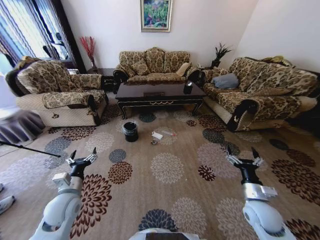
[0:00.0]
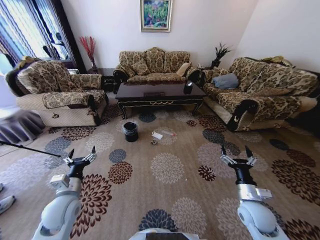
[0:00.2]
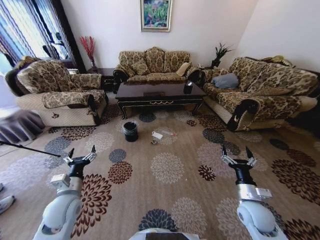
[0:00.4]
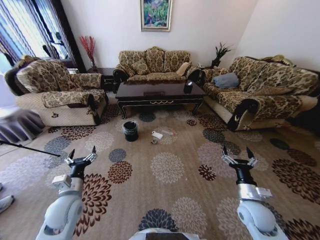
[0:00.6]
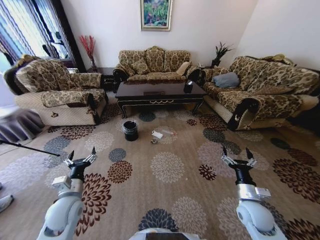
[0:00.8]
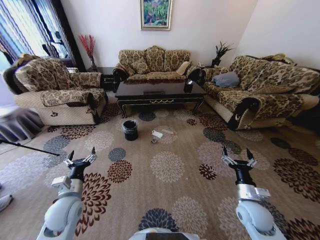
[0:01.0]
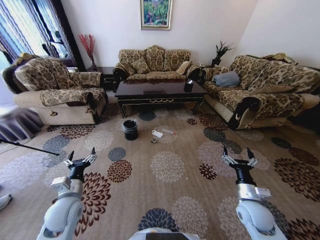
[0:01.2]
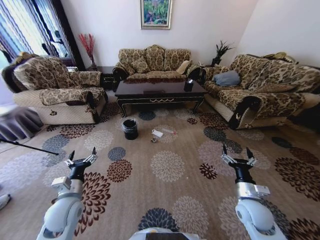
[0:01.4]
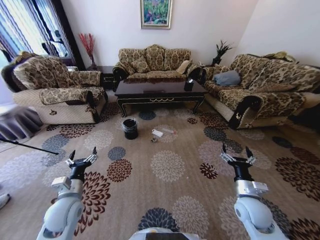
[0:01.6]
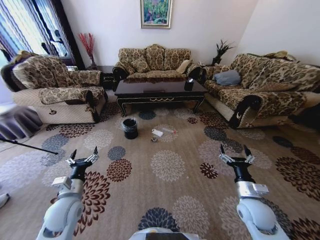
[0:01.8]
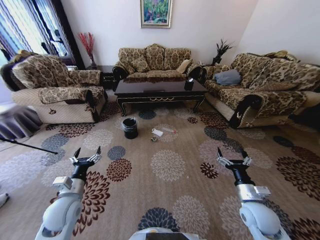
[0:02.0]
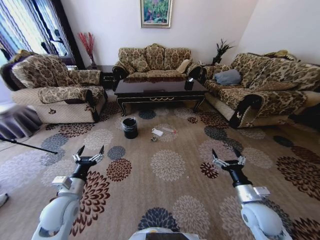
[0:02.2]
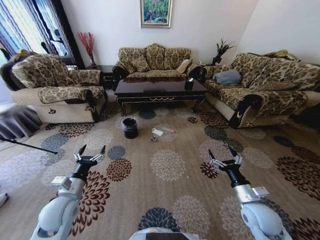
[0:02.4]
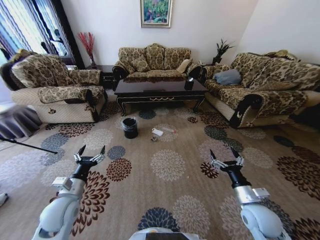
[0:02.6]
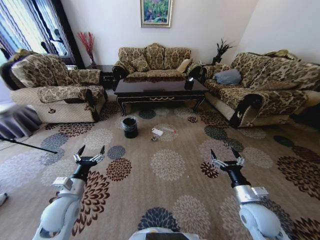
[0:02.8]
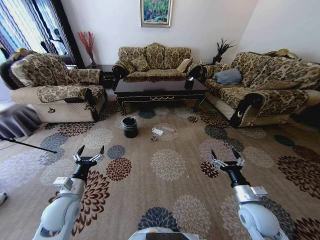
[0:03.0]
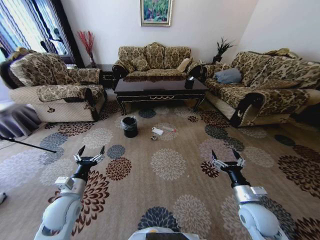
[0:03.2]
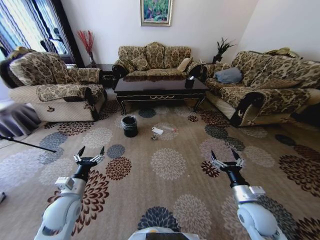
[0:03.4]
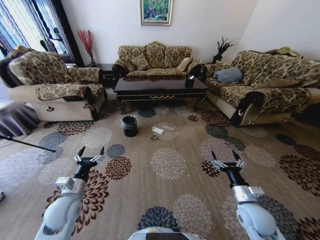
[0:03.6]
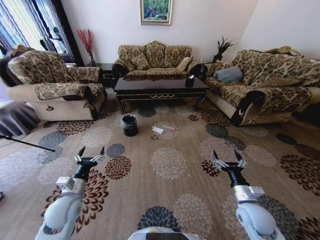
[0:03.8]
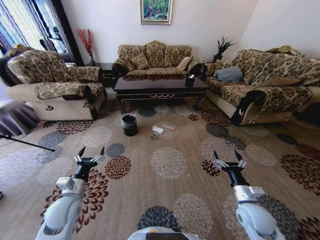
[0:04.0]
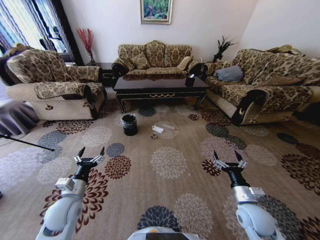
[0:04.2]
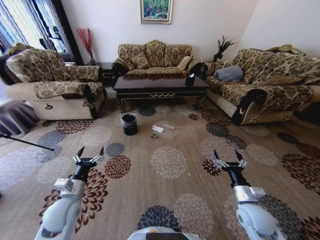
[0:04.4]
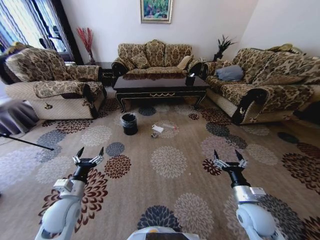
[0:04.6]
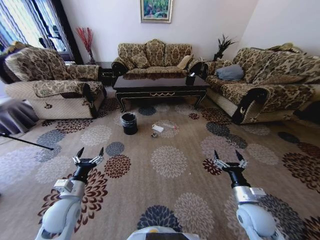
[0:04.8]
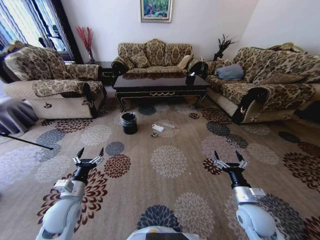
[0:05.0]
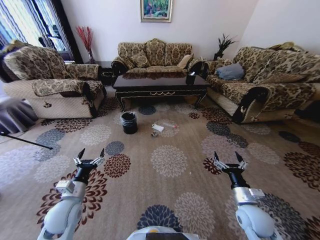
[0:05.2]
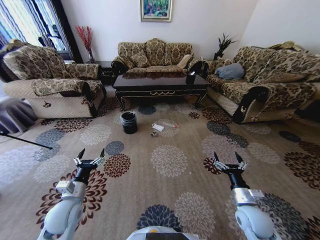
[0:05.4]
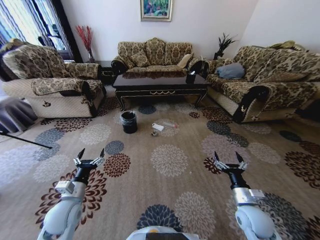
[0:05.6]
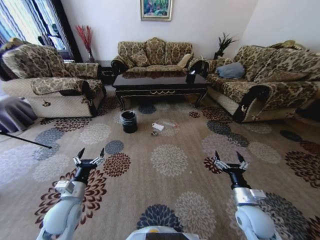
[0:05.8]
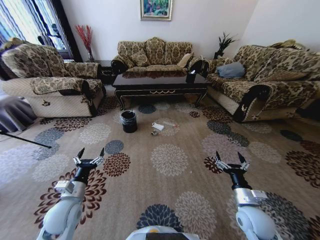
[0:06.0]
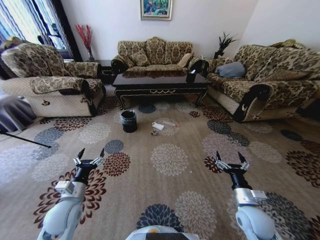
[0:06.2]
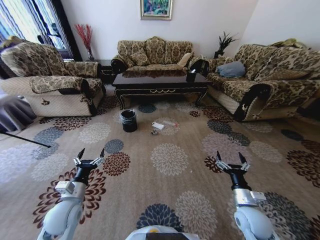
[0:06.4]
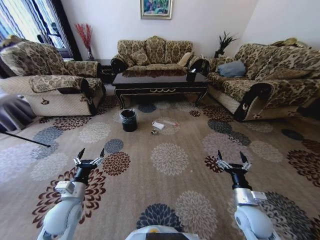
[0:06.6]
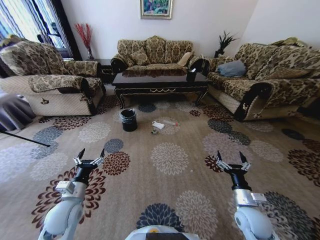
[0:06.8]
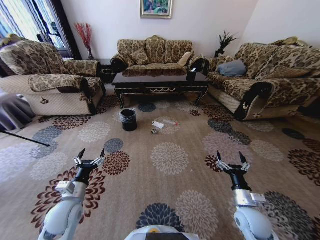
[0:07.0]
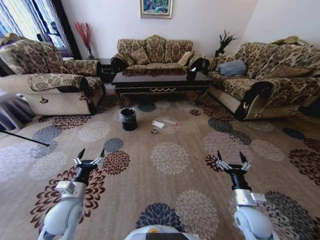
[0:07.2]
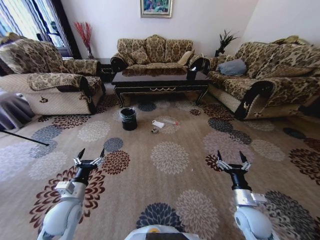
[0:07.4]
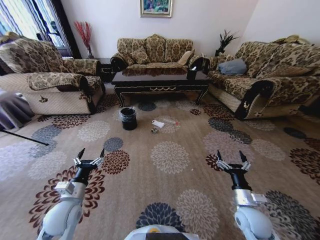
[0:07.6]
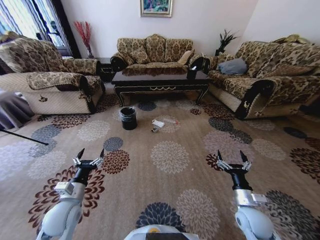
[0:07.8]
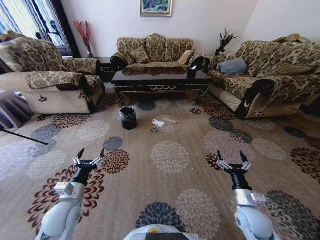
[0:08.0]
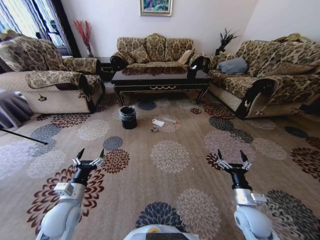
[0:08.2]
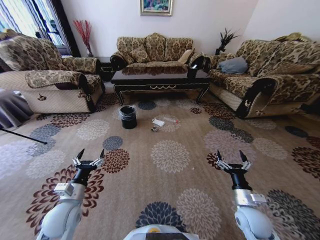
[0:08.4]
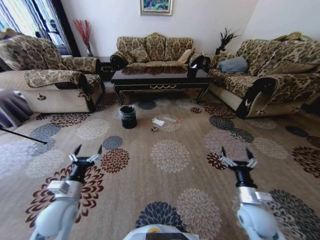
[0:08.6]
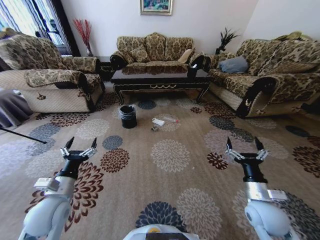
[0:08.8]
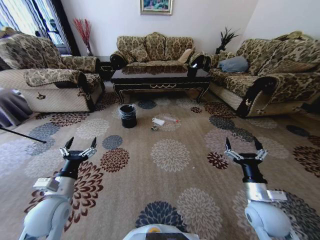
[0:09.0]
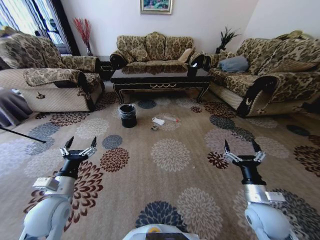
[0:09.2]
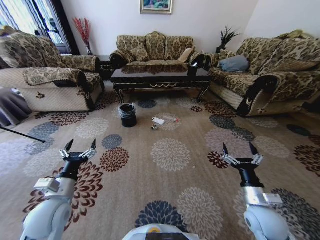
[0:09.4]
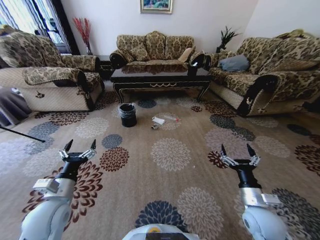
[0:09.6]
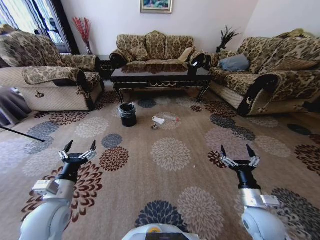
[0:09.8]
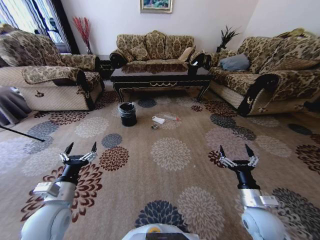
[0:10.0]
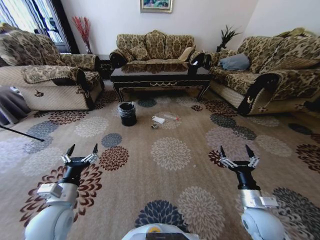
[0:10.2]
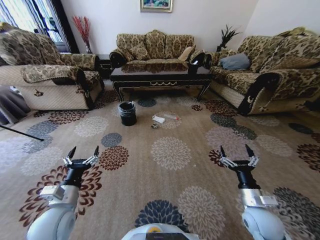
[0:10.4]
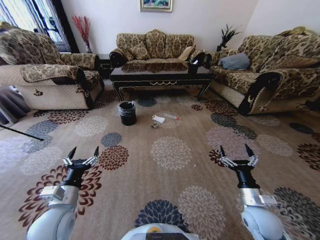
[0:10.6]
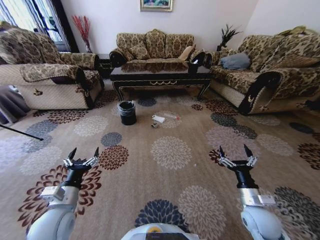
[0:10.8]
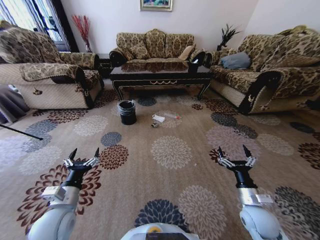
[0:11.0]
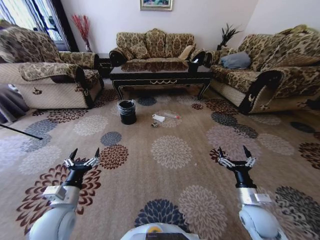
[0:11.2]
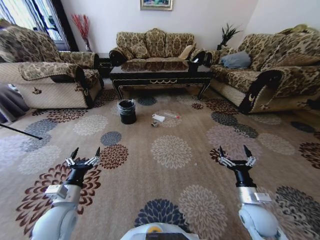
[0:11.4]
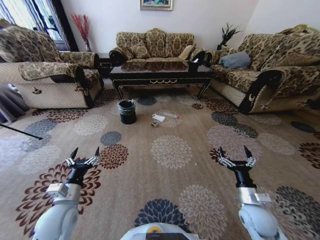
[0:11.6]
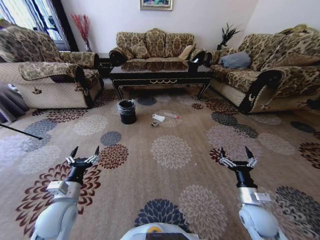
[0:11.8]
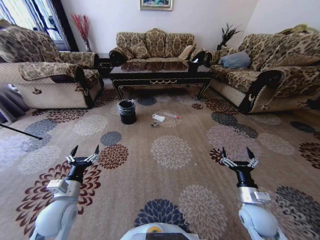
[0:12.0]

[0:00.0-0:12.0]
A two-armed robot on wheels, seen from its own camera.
Task of the whole recording: Move to the front of the table and pick up the trash from the floor, then place it into the trash bin.
0:07.6 to 0:09.0: Both grippers travel together upward, some 5 cm.
0:10.4 to 0:12.0: There are only small adjustments of the grippers.

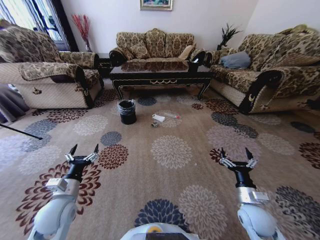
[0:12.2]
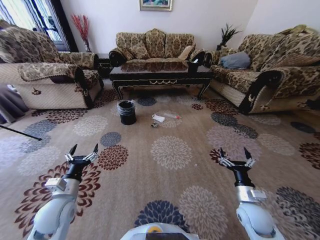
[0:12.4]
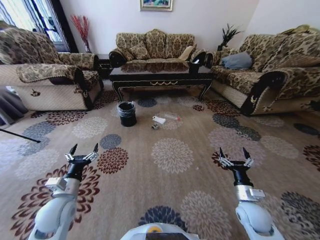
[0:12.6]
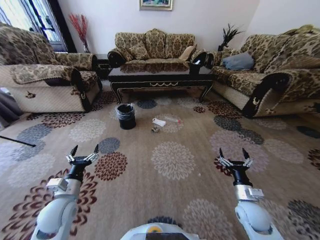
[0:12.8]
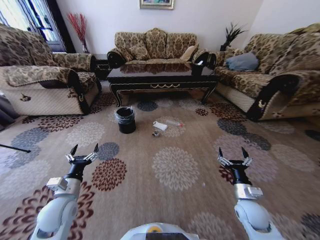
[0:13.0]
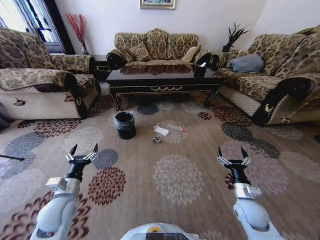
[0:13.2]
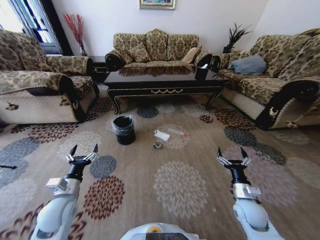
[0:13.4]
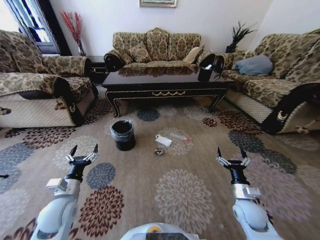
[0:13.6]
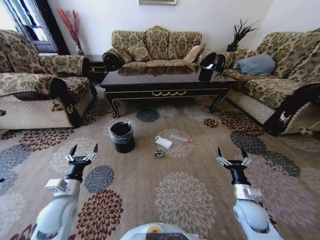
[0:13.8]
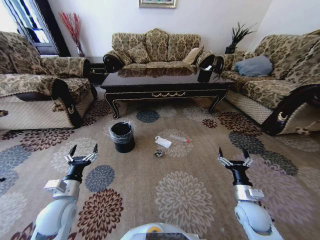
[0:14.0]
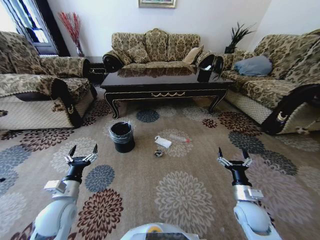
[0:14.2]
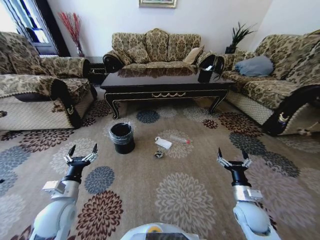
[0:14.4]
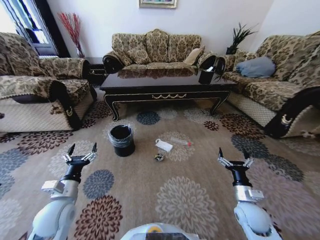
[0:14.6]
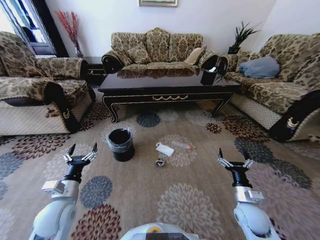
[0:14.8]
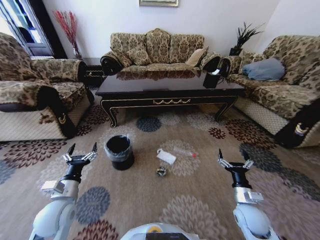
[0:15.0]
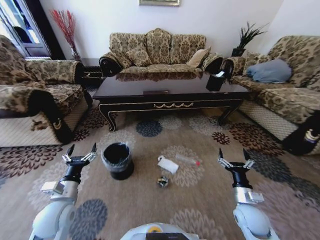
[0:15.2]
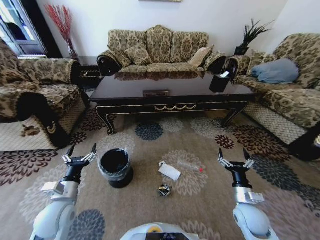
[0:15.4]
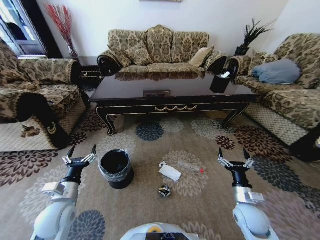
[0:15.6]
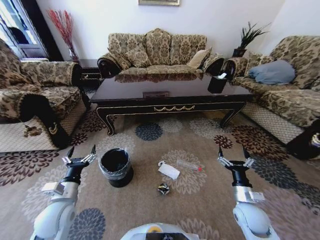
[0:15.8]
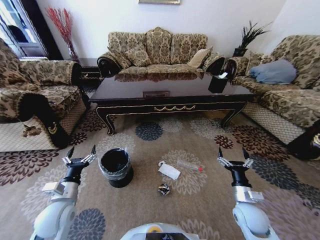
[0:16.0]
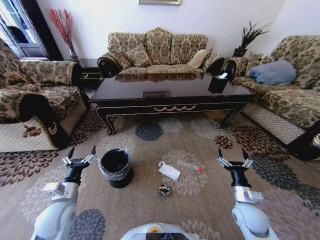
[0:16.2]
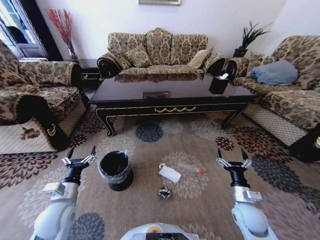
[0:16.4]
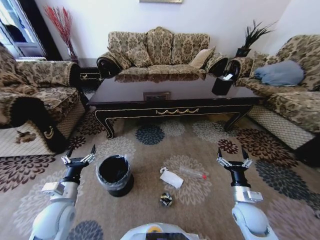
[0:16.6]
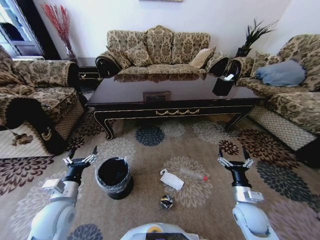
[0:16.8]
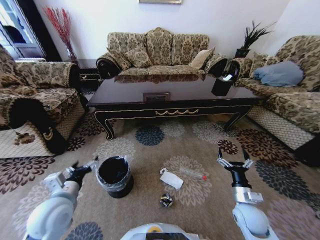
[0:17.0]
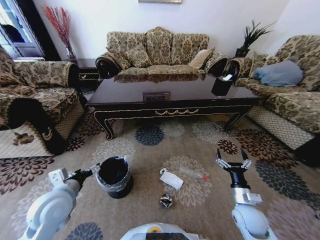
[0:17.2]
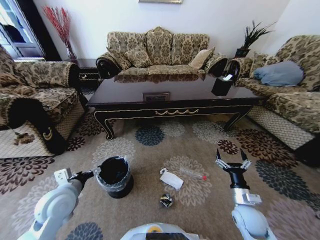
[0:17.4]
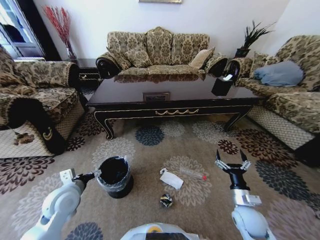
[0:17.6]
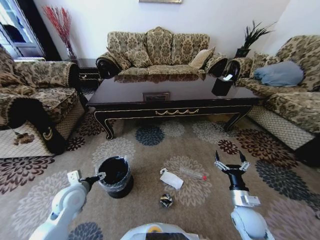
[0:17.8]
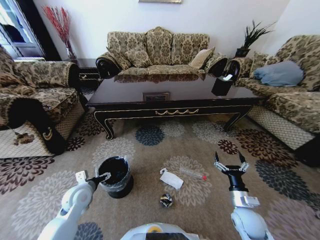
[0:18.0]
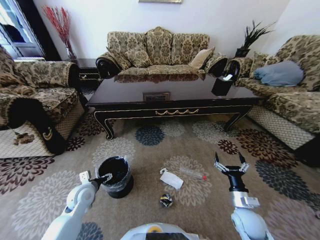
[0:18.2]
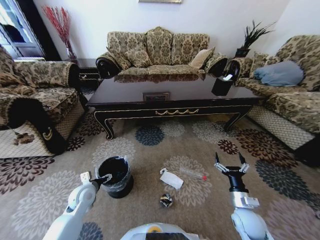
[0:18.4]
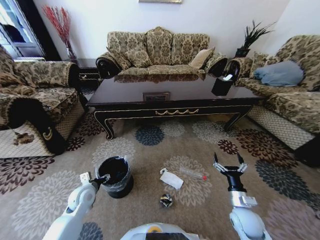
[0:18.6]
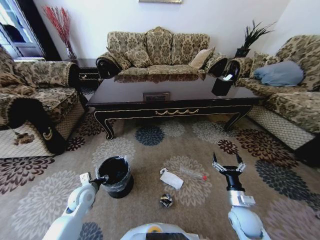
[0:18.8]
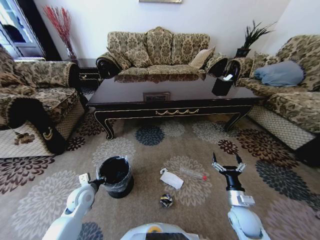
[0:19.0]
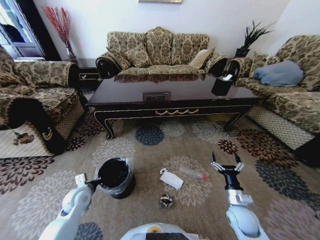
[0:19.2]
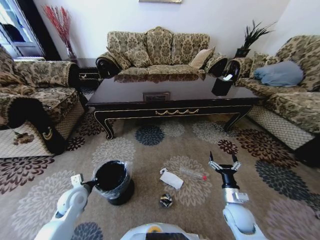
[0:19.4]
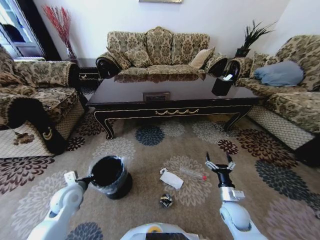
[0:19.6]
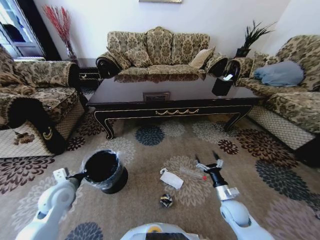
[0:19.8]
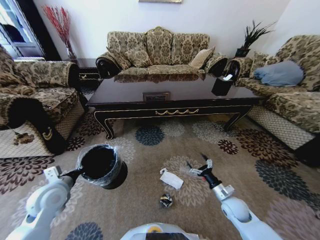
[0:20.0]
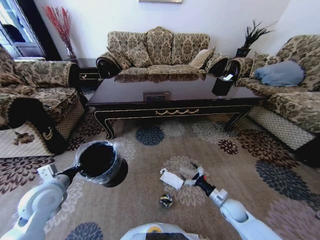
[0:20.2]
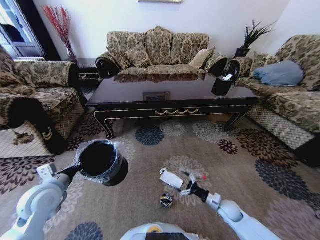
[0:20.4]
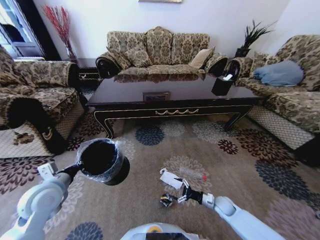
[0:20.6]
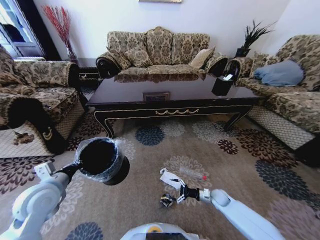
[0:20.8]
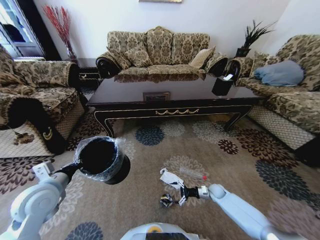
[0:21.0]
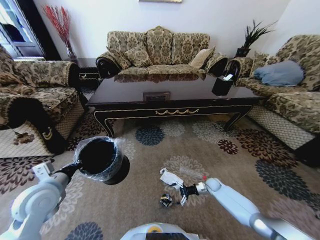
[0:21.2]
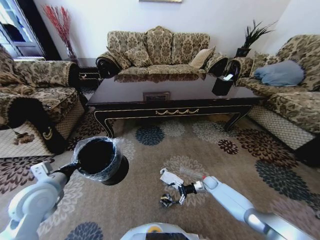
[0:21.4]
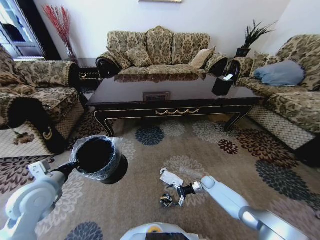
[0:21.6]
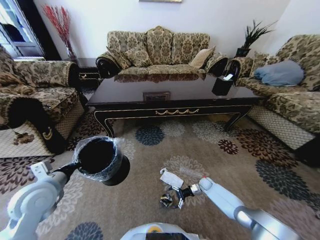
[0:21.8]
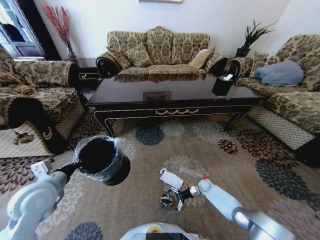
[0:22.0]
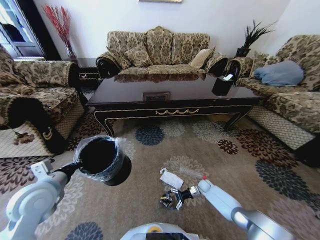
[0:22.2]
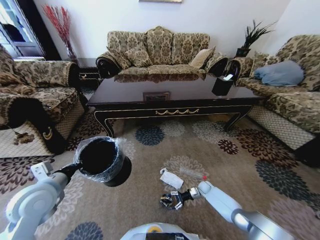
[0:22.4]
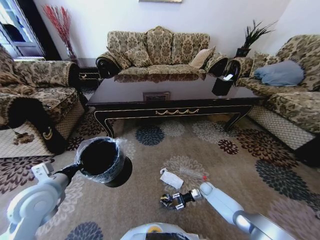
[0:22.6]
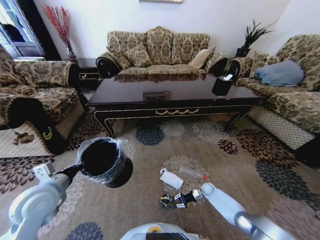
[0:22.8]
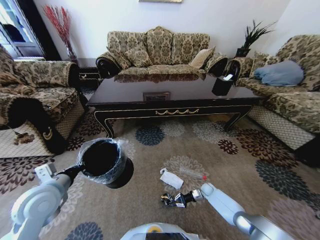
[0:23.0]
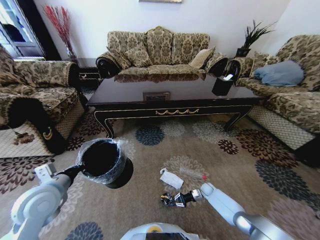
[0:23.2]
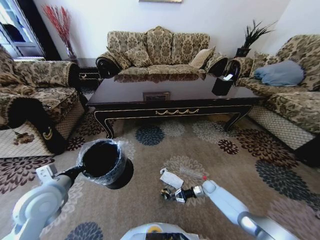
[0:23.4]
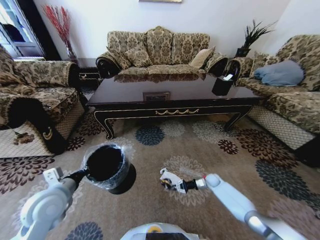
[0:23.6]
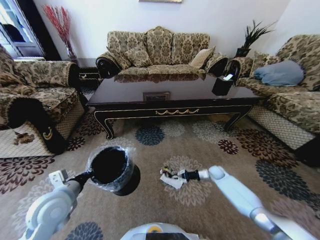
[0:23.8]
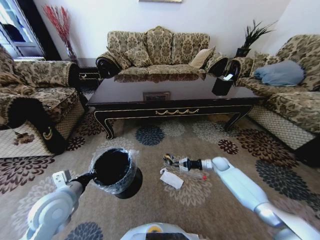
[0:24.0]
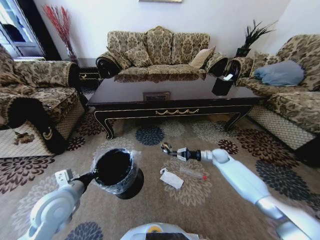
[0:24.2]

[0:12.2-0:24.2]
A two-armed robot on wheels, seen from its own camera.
Task of the whole recording: Move to the front of the table and pick up the trash from the floor, then place it into the trash bin.
0:16.6 to 0:18.2: The left gripper shifts roughly 10 cm forward and downward.
0:18.2 to 0:19.8: The right gripper ends up roughly 5 cm from where it was. The left gripper travels upward by some 5 cm, and closes.
0:19.8 to 0:21.2: The left gripper is displaced upward by roughly 10 cm. The right gripper goes about 20 cm forward and downward.
0:21.2 to 0:22.6: The right gripper shifts some 5 cm downward, and closes its fingers.
0:22.6 to 0:24.2: The right gripper travels upward and forward by approximately 25 cm, and closes up.
